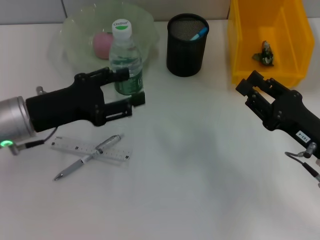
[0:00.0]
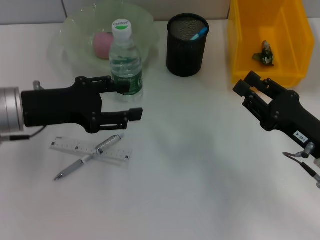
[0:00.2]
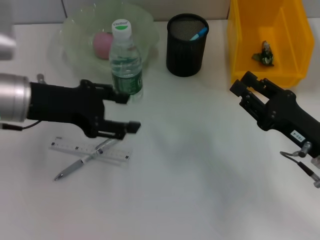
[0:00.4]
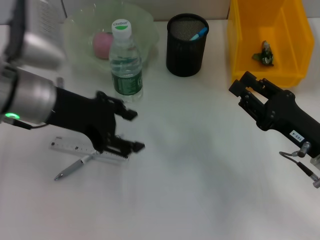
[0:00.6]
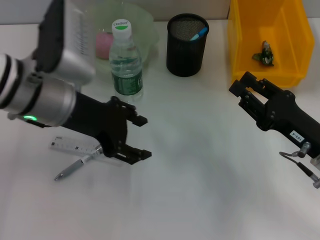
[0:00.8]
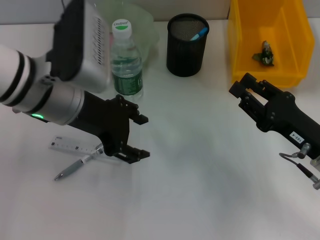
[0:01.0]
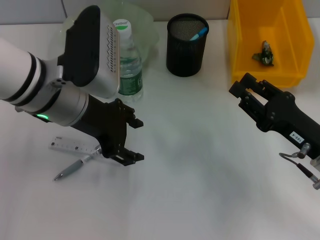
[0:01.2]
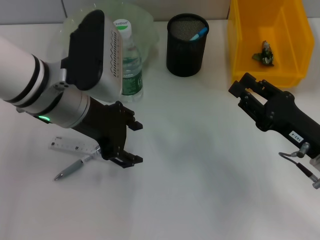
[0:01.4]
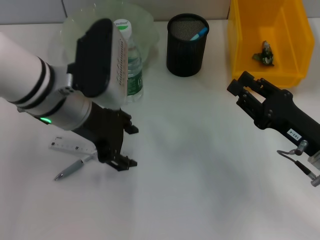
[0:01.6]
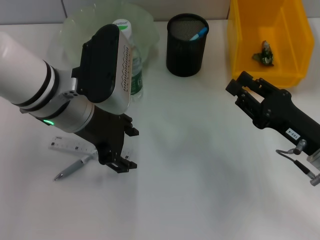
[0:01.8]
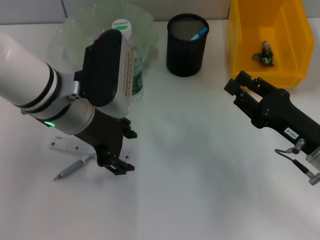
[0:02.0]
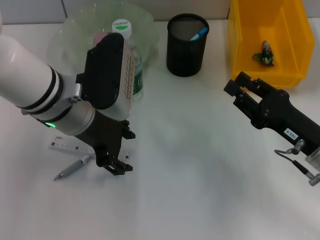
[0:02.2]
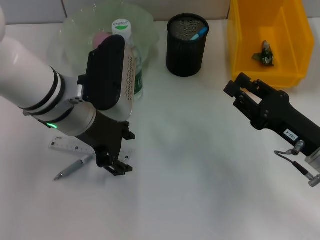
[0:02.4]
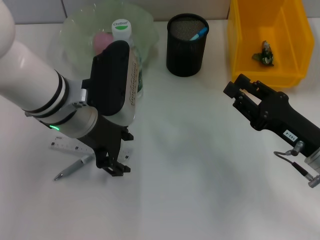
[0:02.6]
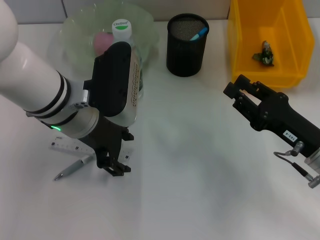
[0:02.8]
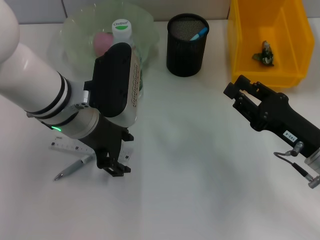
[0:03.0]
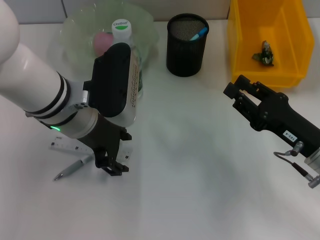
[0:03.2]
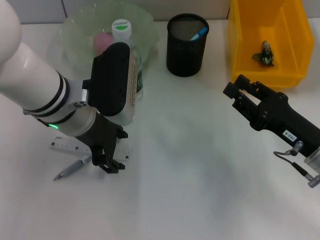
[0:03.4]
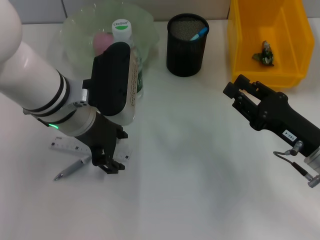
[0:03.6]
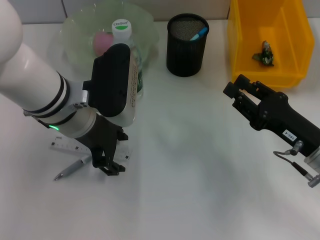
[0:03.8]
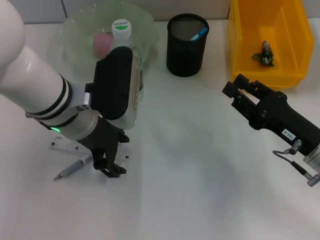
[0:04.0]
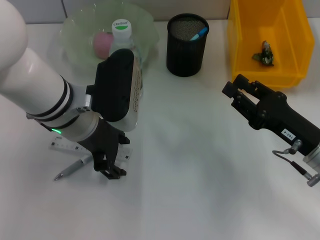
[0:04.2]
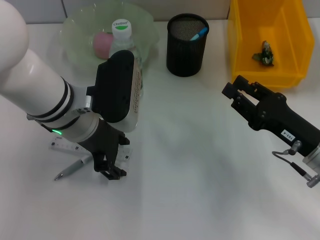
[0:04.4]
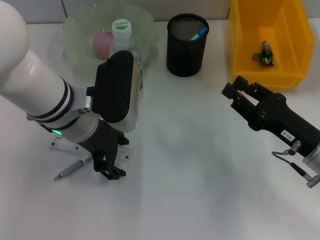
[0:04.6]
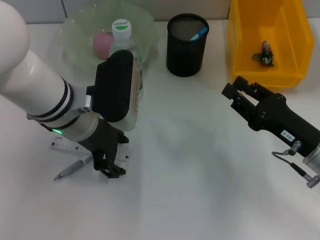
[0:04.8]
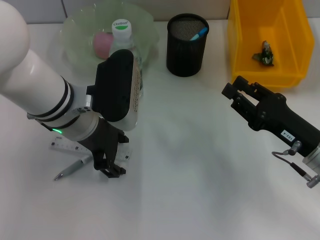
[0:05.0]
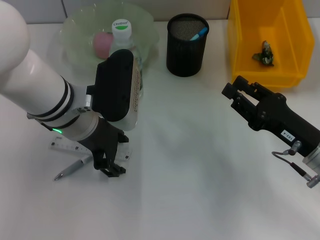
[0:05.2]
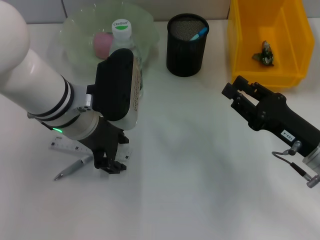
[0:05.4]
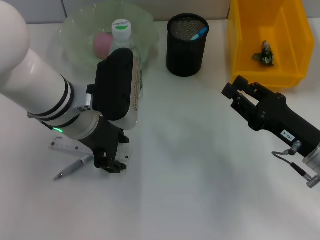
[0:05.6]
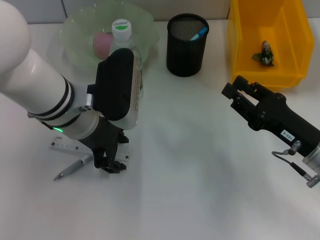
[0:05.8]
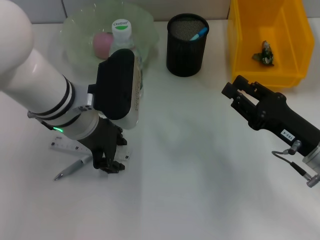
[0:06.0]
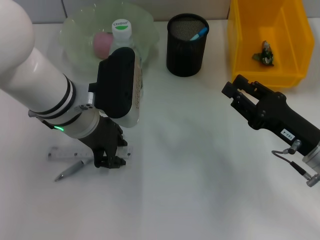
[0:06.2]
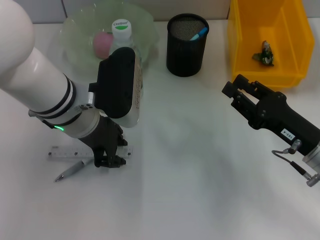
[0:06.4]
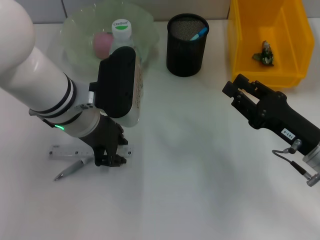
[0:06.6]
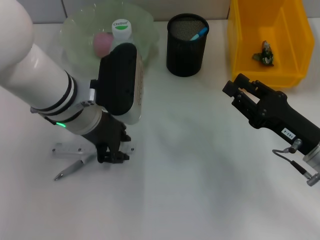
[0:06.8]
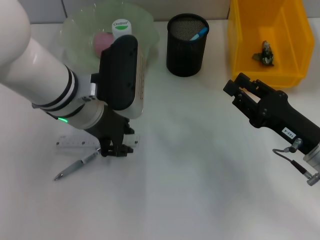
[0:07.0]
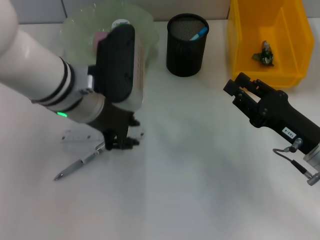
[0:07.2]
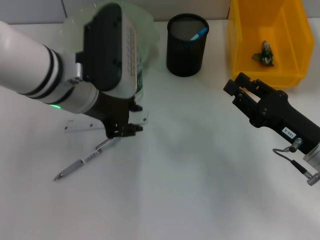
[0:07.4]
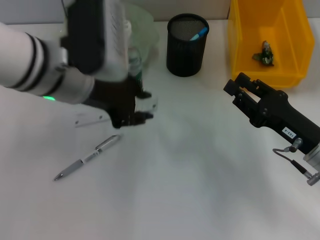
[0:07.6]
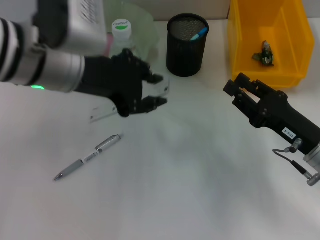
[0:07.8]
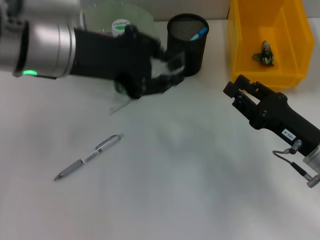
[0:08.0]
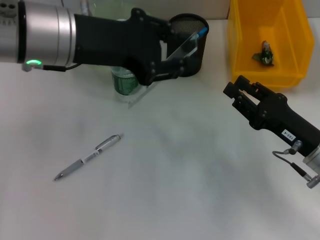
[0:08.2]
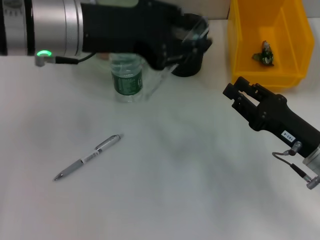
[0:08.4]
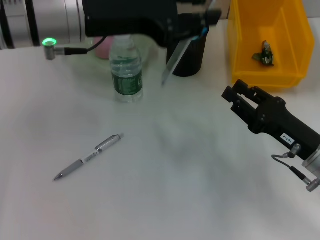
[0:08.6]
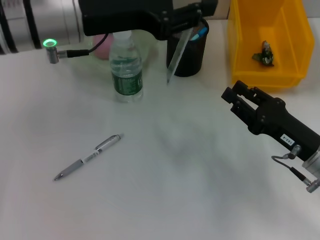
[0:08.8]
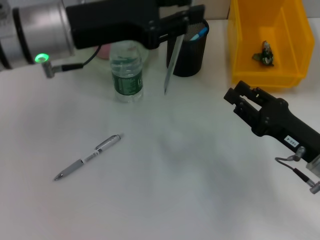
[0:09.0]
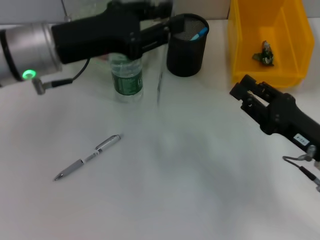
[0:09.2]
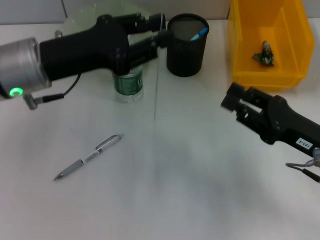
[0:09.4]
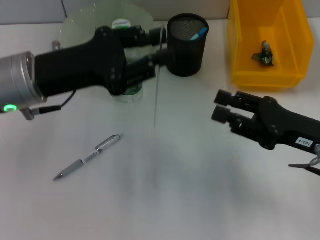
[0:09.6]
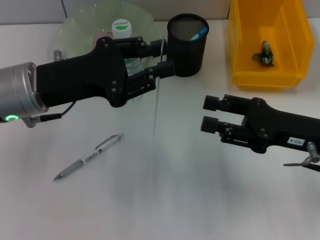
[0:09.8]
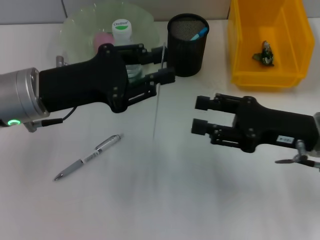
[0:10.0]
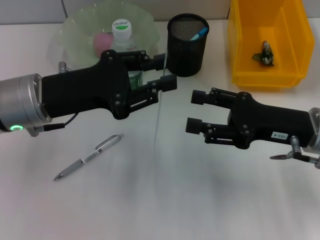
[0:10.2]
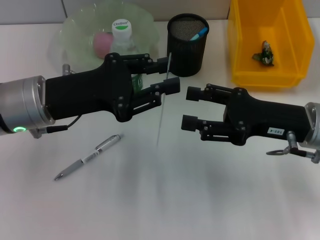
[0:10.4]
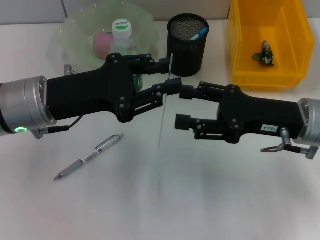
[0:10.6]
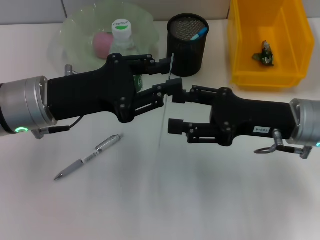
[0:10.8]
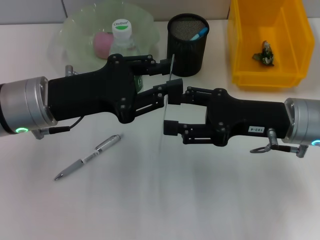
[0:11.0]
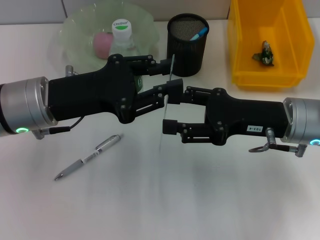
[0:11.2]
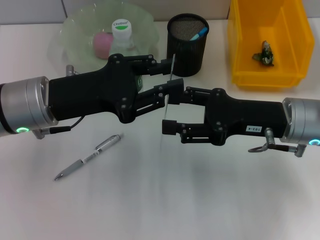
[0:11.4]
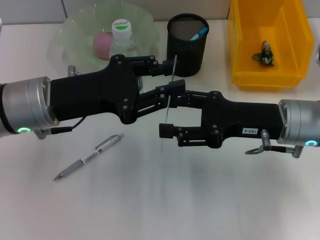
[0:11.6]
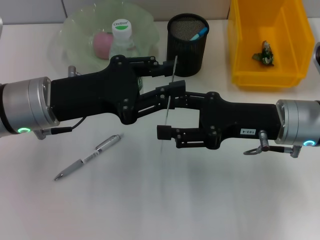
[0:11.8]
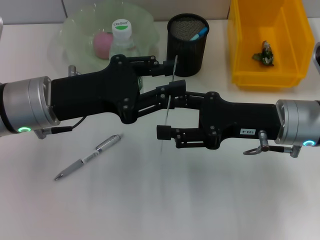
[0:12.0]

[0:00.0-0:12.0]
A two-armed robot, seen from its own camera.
0:00.0 to 0:01.6: The left gripper goes about 10 cm to the right and upward.
0:01.6 to 0:03.0: The grippers make only small movements.
0:03.0 to 0:06.0: The two grippers keep their place.
0:06.0 to 0:07.6: The left gripper heads upward, covering roughly 5 cm.
0:09.0 to 0:10.4: The right gripper travels upward by approximately 5 cm, and opens up; the left gripper heads downward, covering some 5 cm.
0:10.4 to 0:12.0: The grippers make only small movements.

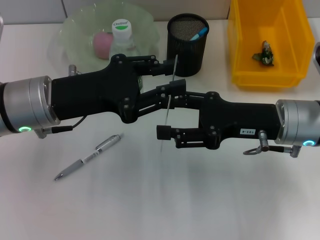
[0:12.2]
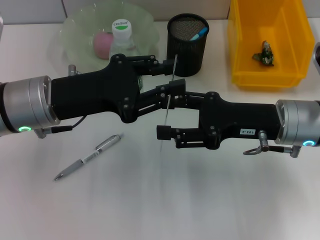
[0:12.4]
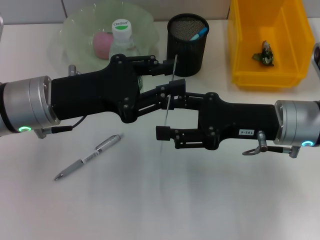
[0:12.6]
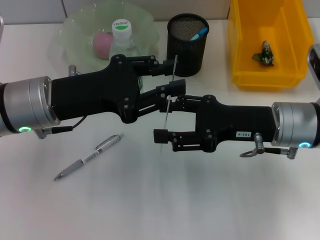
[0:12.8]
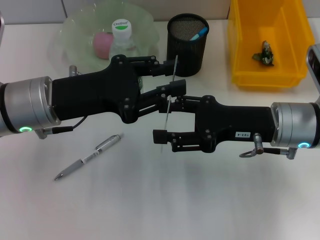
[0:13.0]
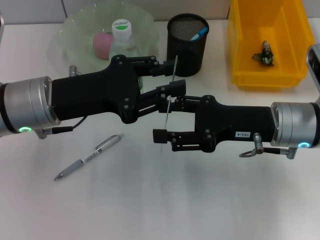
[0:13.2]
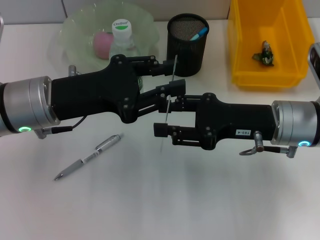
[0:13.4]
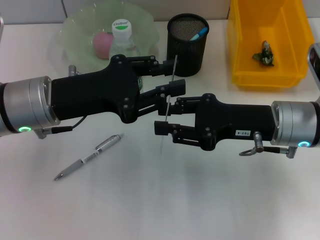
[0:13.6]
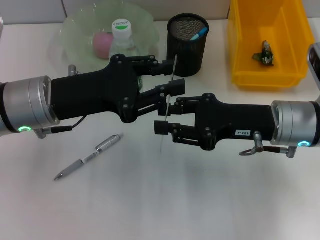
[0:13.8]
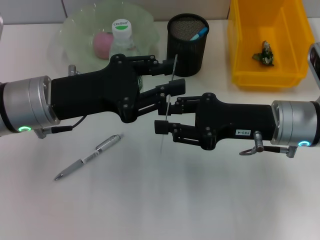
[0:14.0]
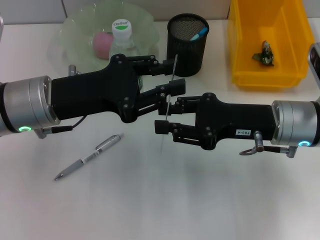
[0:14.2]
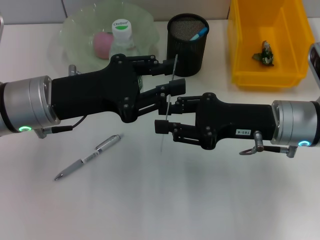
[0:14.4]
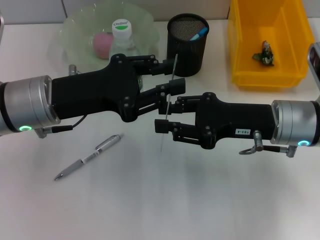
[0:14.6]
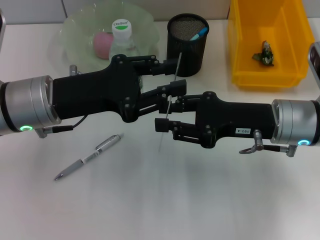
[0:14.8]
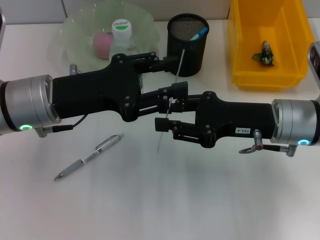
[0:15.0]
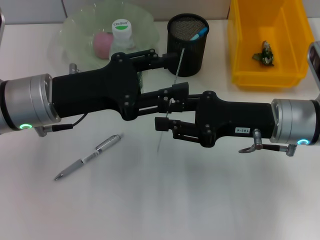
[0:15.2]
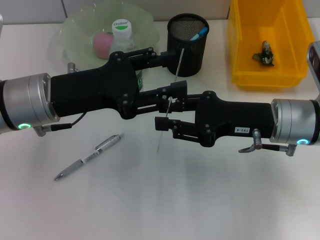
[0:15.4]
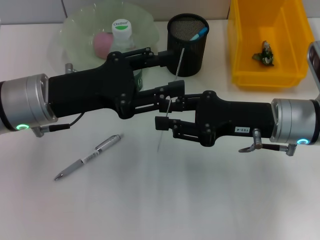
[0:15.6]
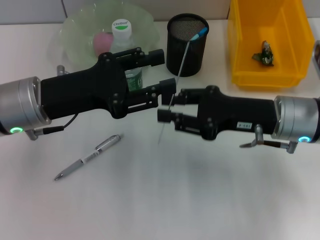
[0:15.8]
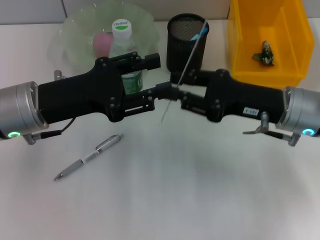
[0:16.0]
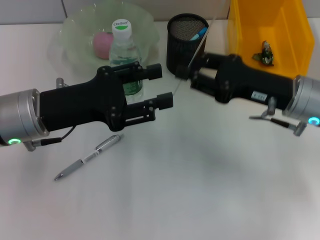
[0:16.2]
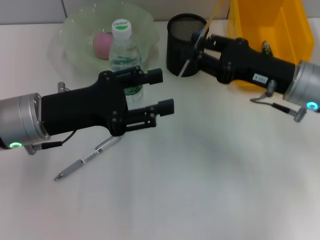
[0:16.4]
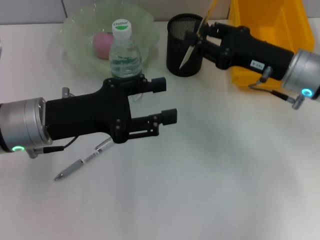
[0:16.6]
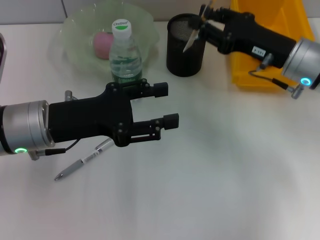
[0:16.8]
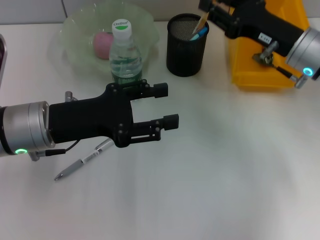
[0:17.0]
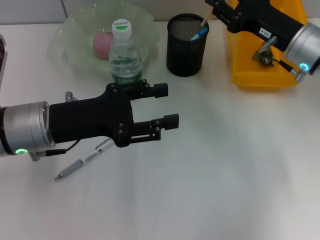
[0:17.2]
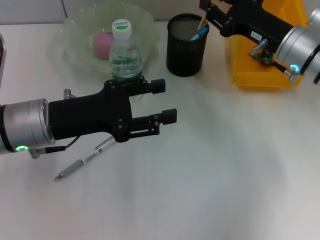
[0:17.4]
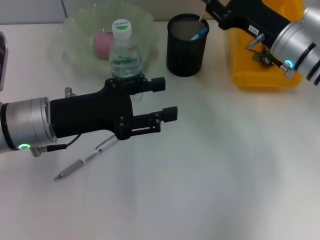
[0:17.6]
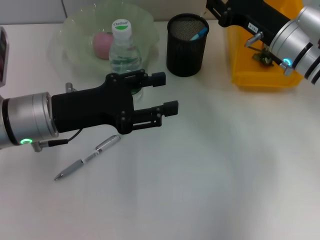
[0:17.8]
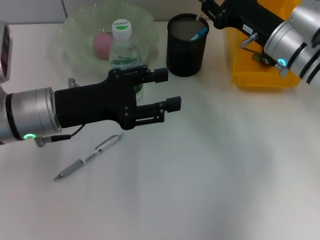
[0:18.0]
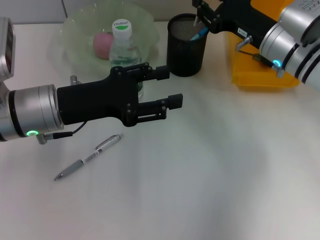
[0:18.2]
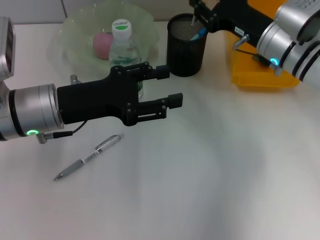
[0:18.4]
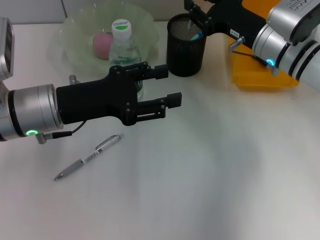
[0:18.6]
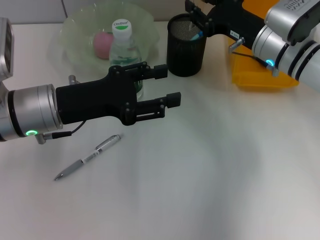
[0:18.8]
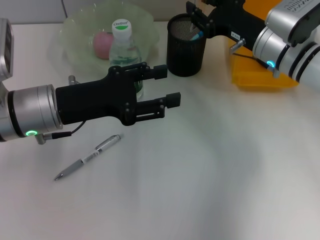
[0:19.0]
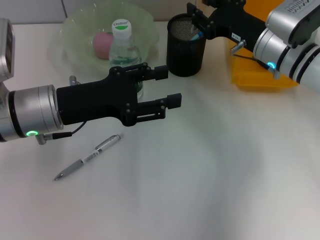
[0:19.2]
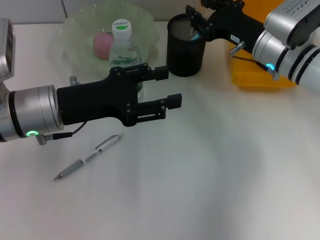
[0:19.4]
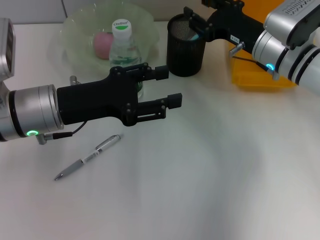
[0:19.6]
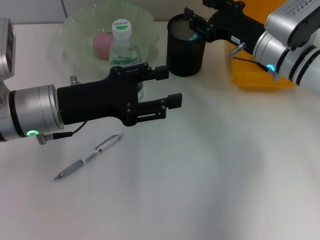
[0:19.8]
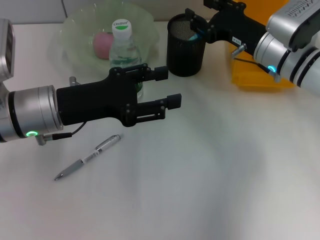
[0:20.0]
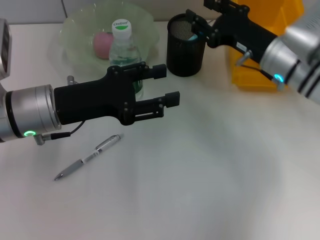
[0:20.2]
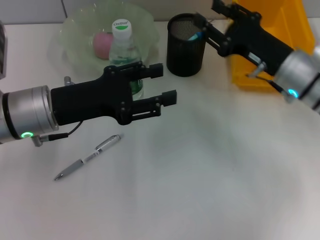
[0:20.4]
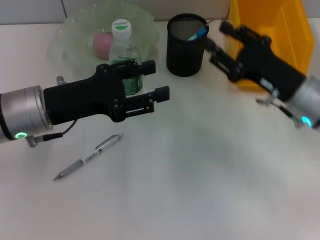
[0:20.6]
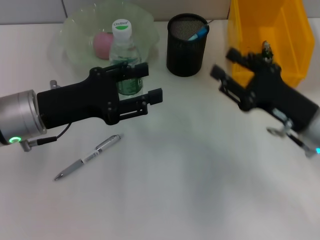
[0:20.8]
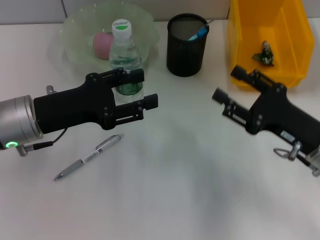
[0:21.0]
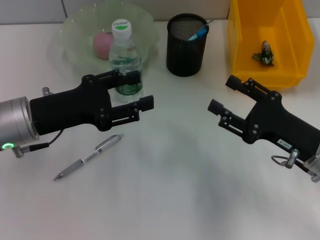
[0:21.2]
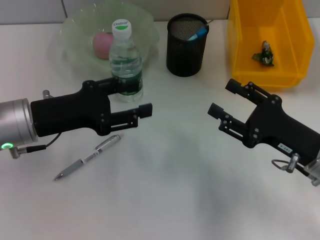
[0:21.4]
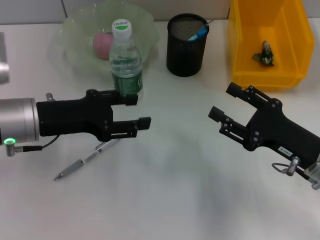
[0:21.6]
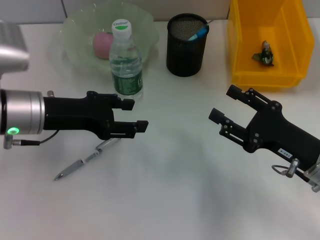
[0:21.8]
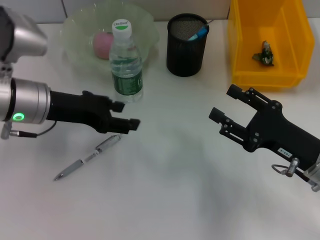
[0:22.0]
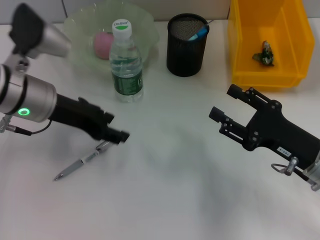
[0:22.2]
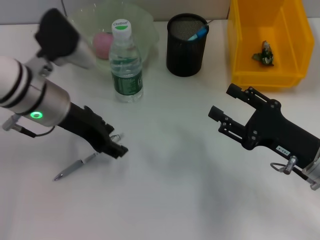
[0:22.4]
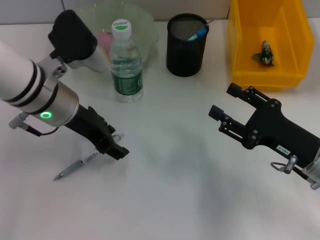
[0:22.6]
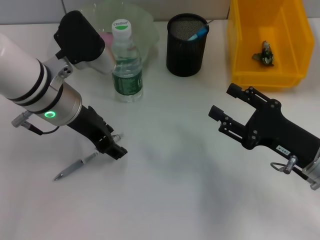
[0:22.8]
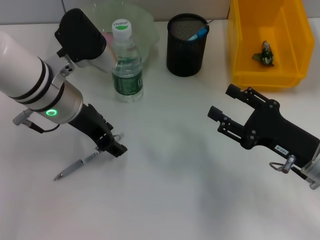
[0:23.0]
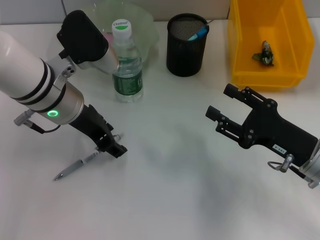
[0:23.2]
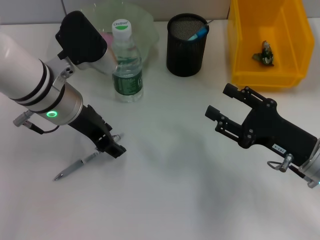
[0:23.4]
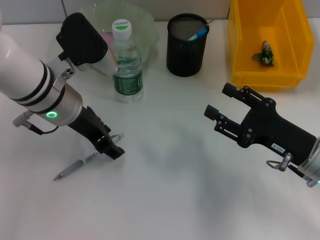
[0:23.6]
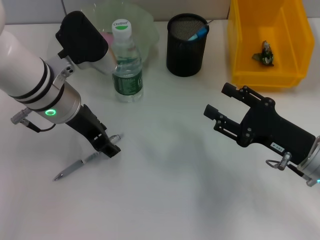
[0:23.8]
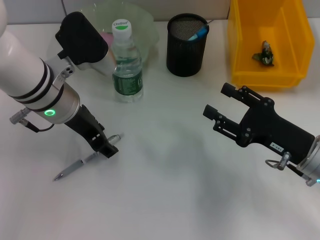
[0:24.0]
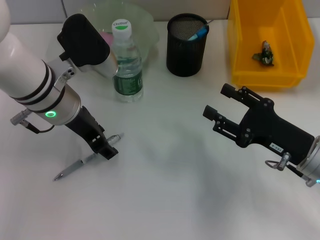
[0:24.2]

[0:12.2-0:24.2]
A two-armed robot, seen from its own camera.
Step, 0:12.2 to 0:16.0: Pass the ruler from the left hand to the right hand.
Step, 0:16.4 to 0:20.2: Place the ruler into the pen holder with the right hand.
0:12.2 to 0:13.8: The right gripper closes.
0:13.8 to 0:15.2: Both grippers stay put.
0:15.2 to 0:16.6: The right gripper shifts approximately 5 cm forward.
0:16.6 to 0:18.2: The right gripper shifts by approximately 5 cm.
0:18.2 to 0:19.8: Both grippers stay about where they are.
0:19.8 to 0:21.2: The right gripper travels backward by about 15 cm.
0:21.2 to 0:22.6: The left gripper heads to the right and forward, covering some 10 cm.
0:22.6 to 0:24.2: The grippers stay close to where they were, moving slightly.
